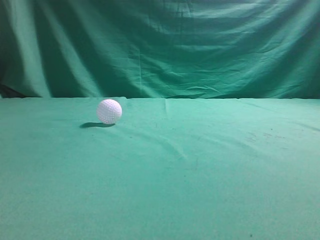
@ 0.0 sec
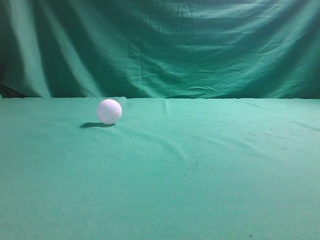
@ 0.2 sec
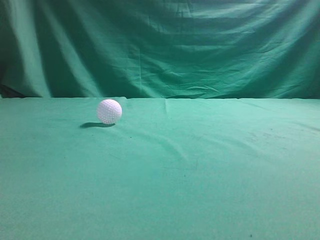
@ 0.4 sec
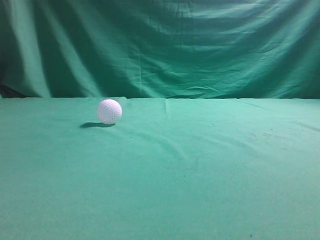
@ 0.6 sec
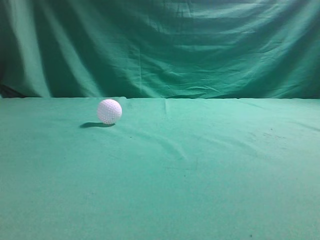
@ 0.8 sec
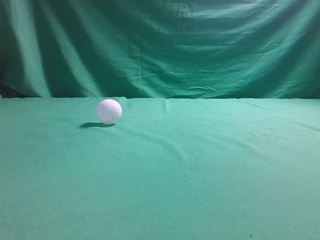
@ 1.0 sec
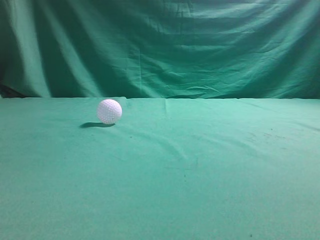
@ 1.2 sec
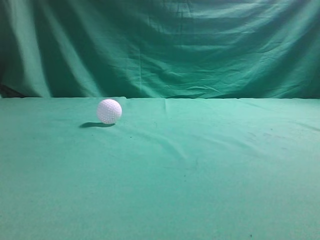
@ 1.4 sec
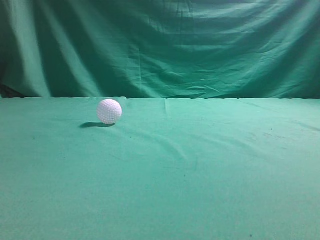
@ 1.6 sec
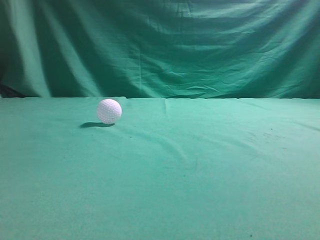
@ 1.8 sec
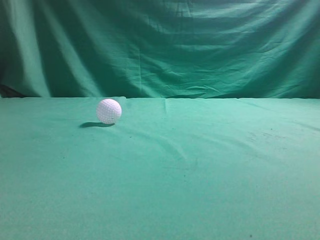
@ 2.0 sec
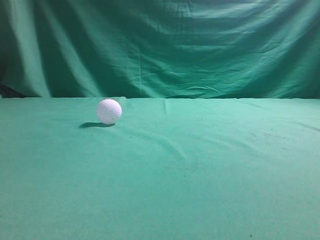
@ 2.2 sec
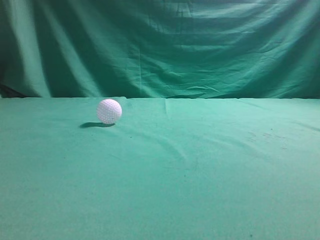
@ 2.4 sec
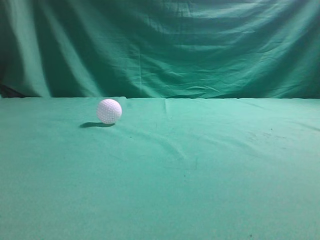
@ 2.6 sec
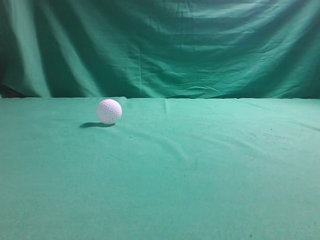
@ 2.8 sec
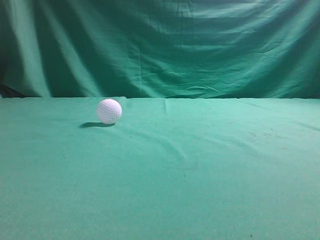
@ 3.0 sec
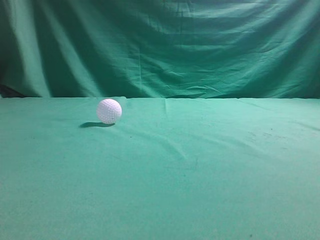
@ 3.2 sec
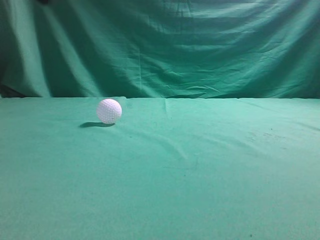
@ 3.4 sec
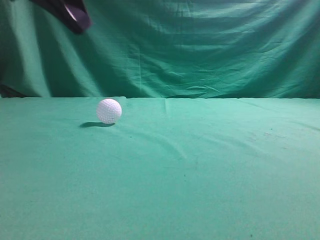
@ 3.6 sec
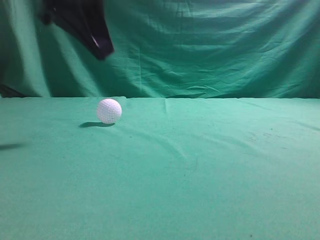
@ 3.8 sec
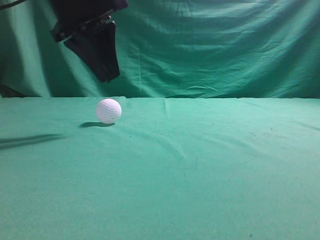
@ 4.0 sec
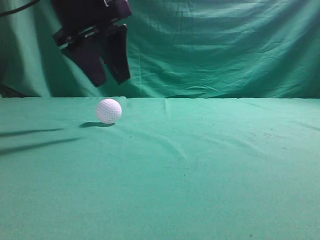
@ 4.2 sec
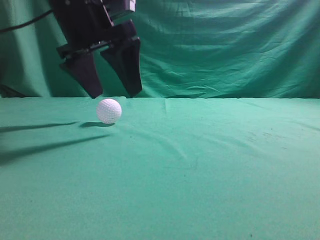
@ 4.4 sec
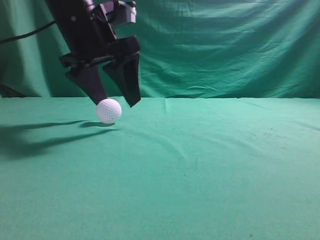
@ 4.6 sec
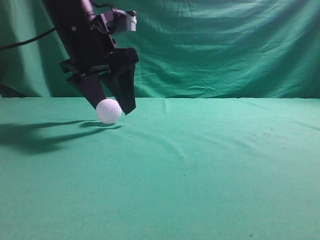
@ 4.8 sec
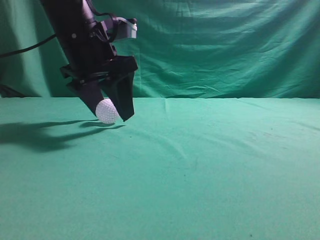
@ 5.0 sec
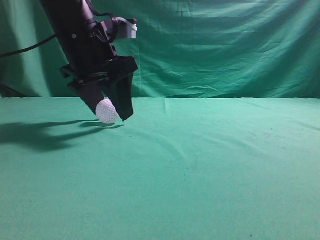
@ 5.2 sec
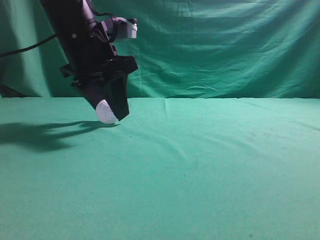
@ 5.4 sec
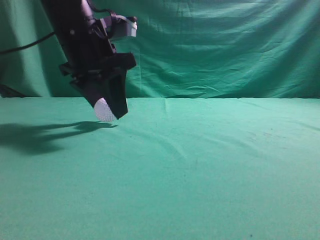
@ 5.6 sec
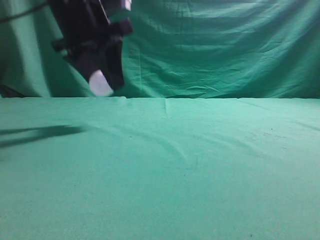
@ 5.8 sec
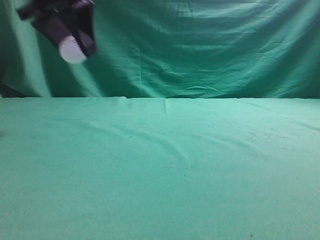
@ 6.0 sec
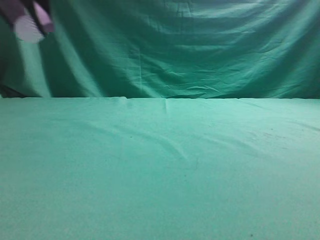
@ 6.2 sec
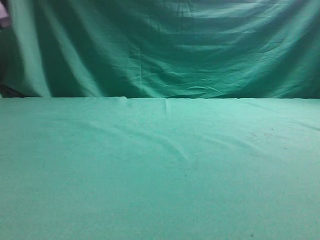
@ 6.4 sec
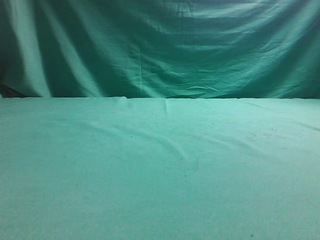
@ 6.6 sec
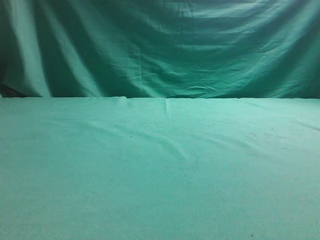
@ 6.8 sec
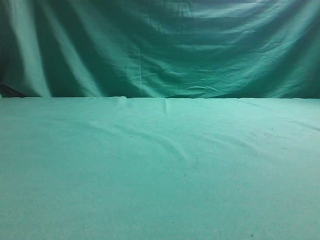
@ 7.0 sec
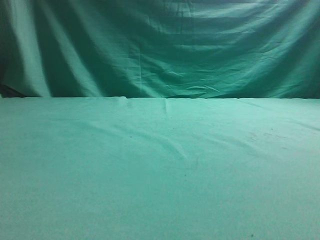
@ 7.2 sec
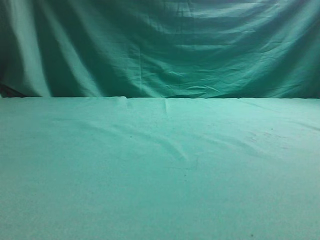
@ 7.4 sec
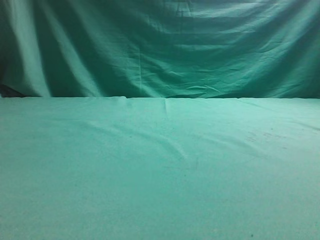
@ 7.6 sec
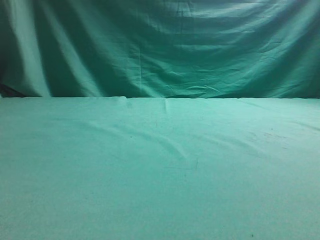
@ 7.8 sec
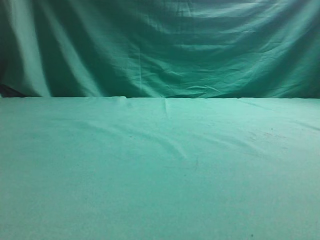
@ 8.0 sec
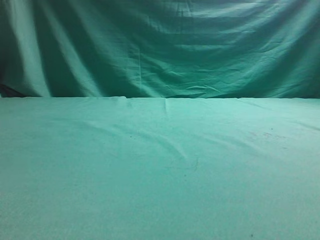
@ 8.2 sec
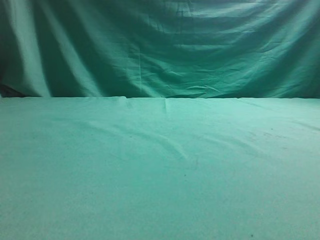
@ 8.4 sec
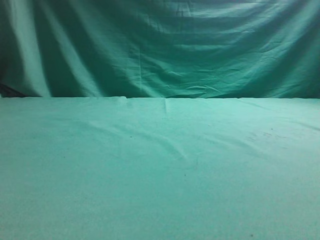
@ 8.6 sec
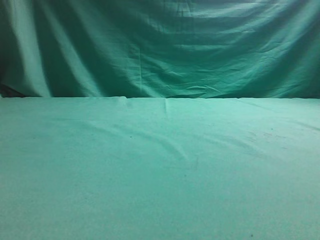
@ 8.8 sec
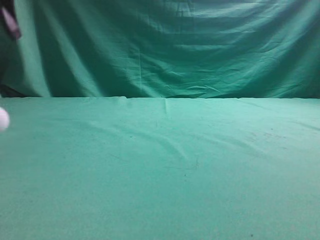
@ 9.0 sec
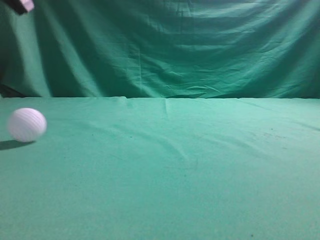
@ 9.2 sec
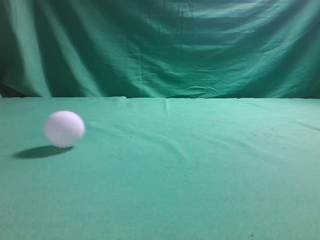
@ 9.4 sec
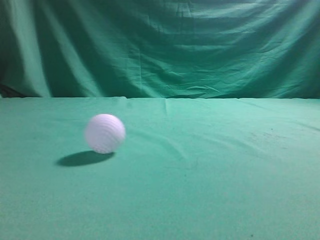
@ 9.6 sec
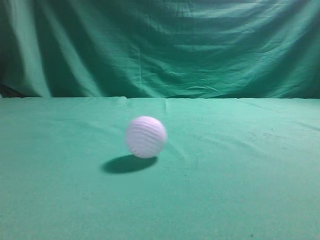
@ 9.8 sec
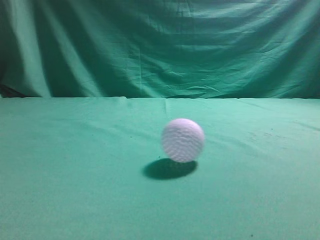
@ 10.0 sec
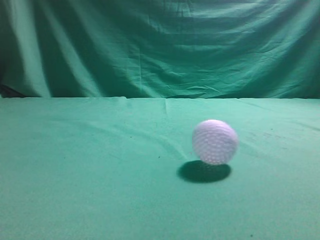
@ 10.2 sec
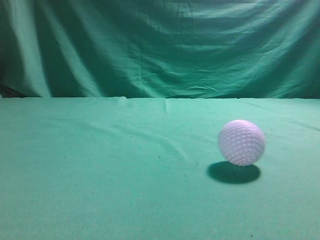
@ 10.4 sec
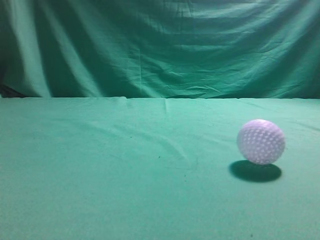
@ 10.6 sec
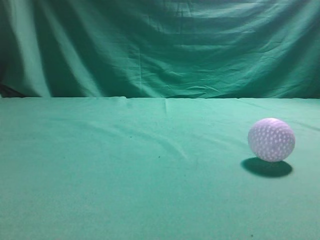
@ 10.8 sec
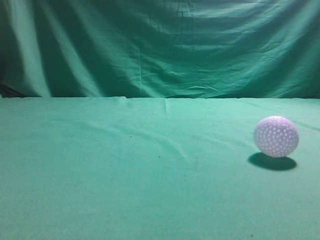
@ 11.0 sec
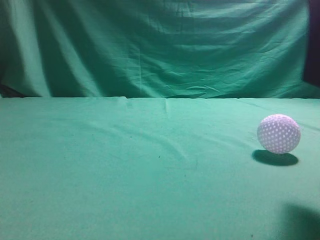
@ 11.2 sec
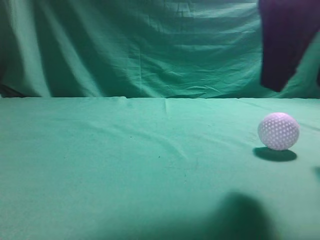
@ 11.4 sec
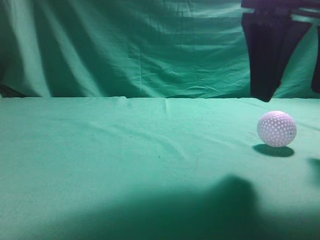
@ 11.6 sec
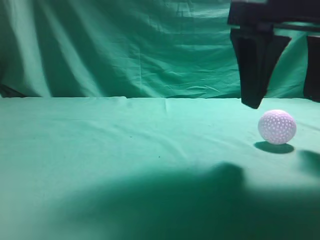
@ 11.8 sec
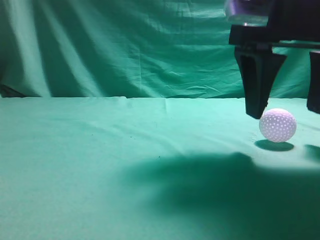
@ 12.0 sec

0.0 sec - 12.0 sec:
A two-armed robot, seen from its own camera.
Task of the whole recording: pick up the ball and place it on the plate, then pick up the ball from the plate and put it in the center of the table.
Step, 0.0 sec - 6.0 sec: Grab the spherical object with your left arm.
Step, 6.2 sec - 8.6 sec: Place the sphere on the white object.
3.0 sec - 4.4 sec: The left gripper moves forward, to the right and downward, approximately 30 cm, and opens up.
4.4 sec - 6.0 sec: The left gripper travels upward by about 5 cm, and closes its fingers.
6.0 sec - 7.6 sec: The left gripper goes about 20 cm to the left.
7.6 sec - 9.0 sec: The left gripper goes some 10 cm upward and forward.
9.0 sec - 10.4 sec: The left gripper shifts about 25 cm backward, and closes up.
10.4 sec - 12.0 sec: The right gripper travels forward, to the left and downward by some 20 cm, and opens up.

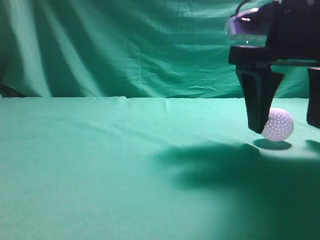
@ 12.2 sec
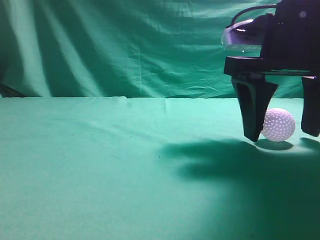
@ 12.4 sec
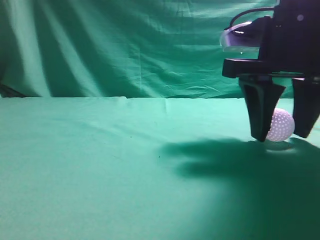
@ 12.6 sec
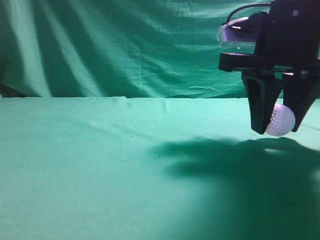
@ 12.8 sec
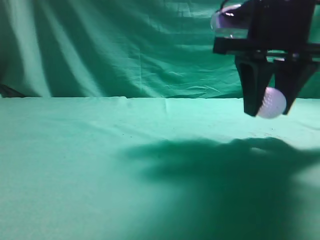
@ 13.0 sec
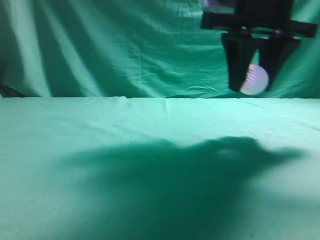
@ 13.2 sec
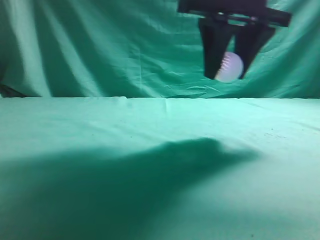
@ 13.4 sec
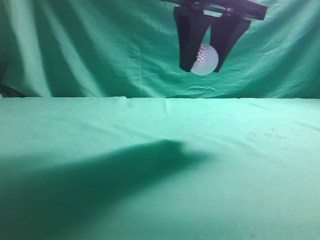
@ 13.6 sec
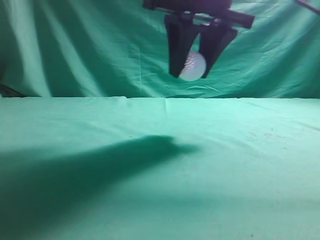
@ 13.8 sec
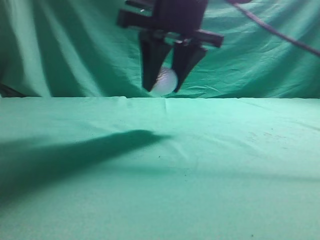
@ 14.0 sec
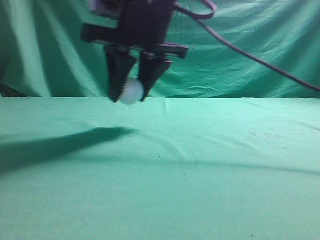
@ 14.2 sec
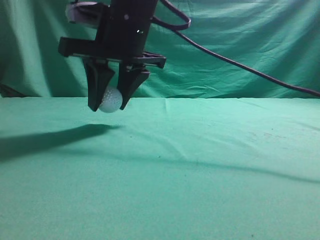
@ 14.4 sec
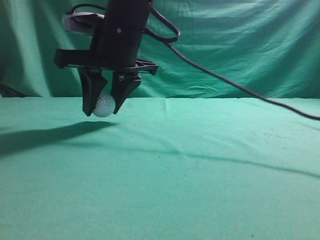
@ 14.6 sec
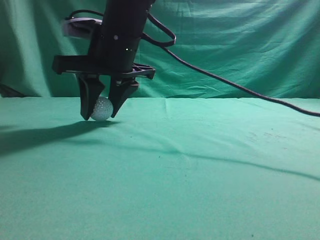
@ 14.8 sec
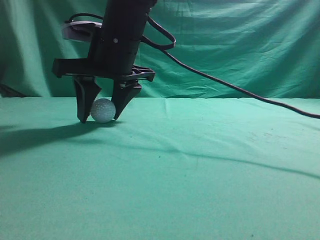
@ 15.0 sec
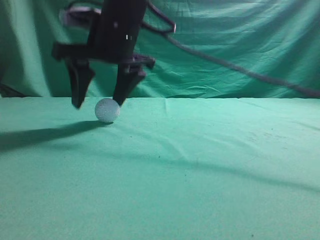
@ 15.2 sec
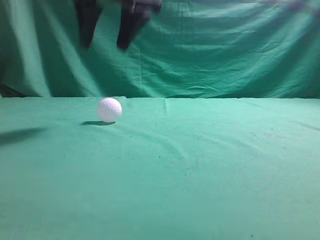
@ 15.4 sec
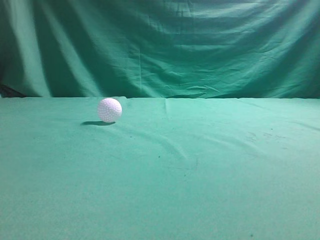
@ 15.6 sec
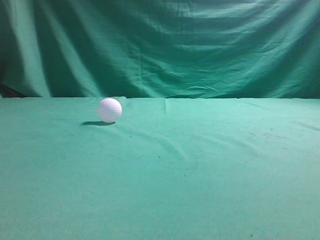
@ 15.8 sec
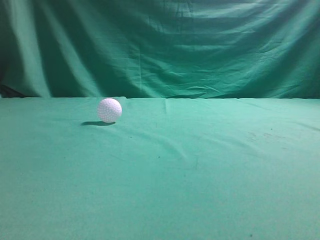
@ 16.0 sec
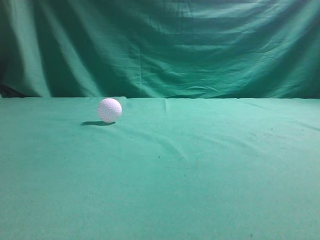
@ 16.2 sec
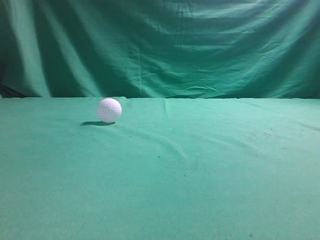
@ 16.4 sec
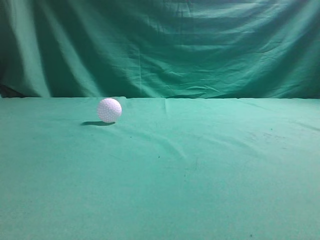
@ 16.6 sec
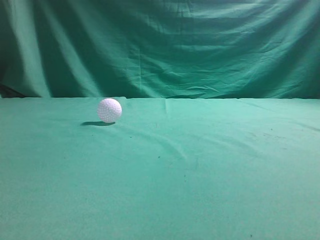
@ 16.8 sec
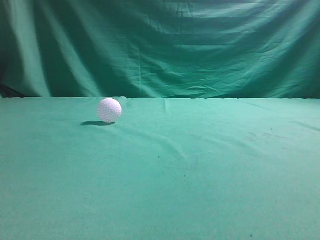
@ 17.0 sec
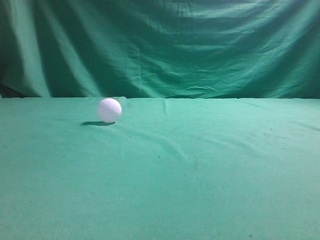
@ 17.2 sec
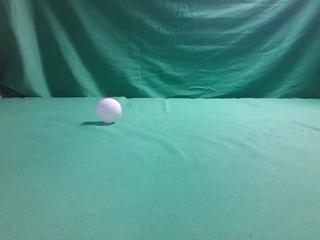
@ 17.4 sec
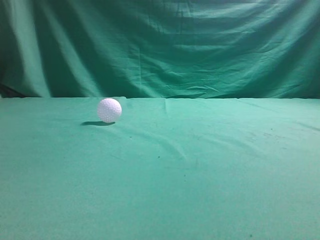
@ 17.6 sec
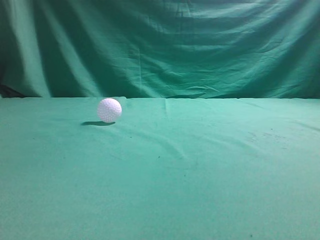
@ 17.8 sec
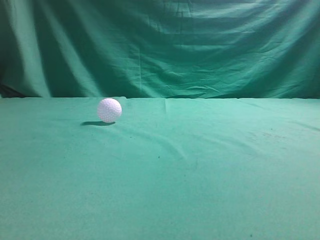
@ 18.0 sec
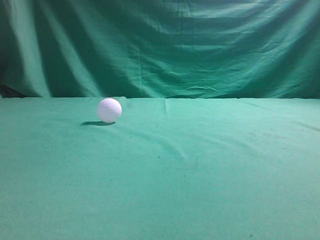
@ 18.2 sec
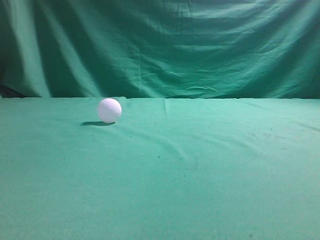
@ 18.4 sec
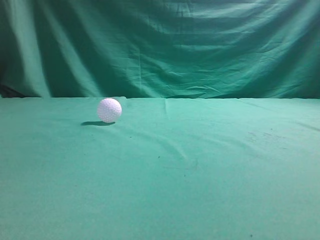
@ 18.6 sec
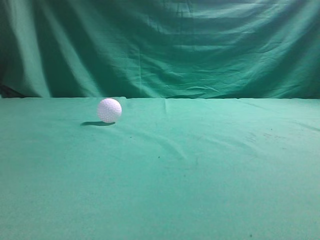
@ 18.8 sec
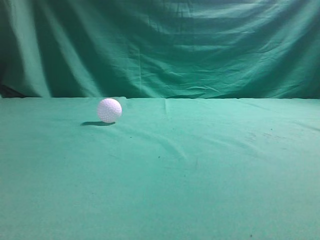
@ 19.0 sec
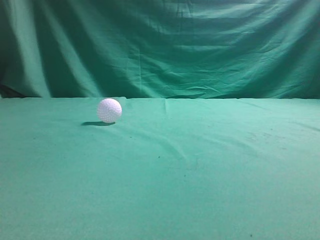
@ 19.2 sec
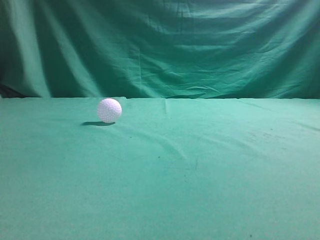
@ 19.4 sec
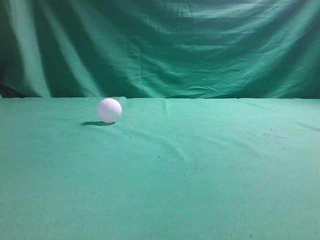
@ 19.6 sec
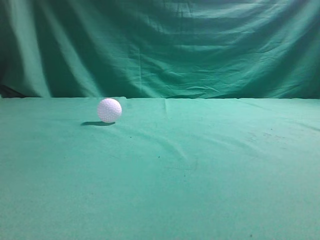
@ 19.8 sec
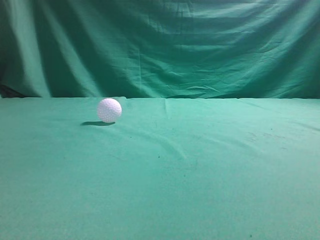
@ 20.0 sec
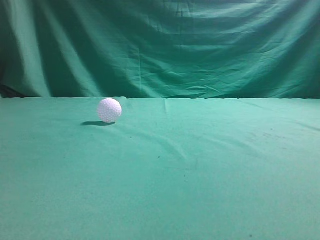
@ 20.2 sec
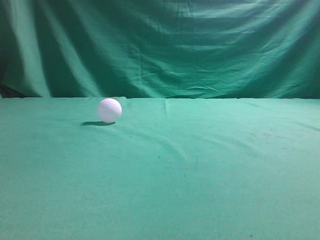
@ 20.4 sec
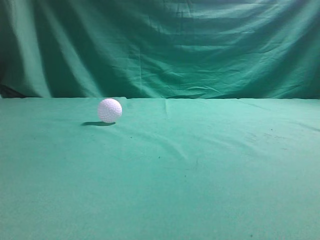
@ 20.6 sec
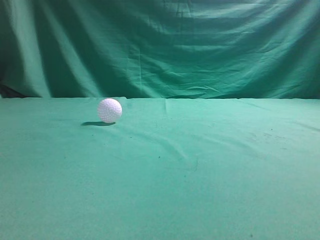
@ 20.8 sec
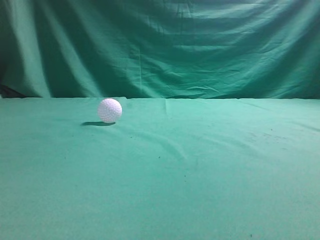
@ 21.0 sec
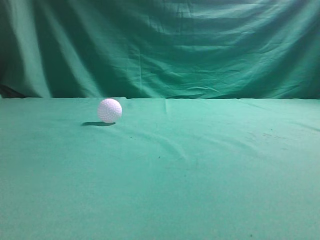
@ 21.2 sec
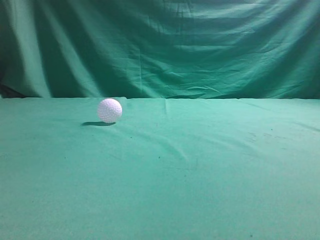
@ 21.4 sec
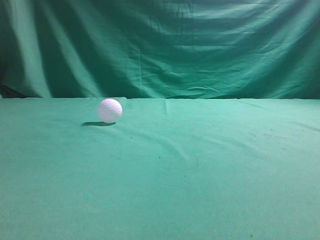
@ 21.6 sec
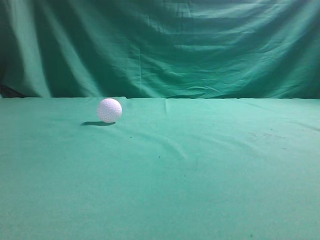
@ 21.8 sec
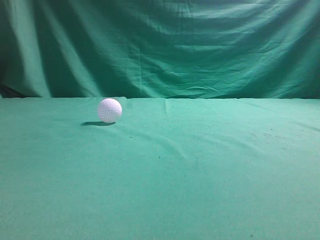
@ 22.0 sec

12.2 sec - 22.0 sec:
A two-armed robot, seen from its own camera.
Task of the whole recording: pick up the ball and place it on the plate, then pick up the ball from the plate and put it in the center of the table.
Step, 13.8 sec - 15.0 sec: Put the picked-up object on the table.
12.2 sec - 13.6 sec: The left gripper is displaced backward by about 5 cm. Meanwhile the right gripper travels to the left and upward by roughly 10 cm, and closes up.
13.6 sec - 15.0 sec: The right gripper heads to the left, downward and forward, covering roughly 15 cm.
15.0 sec - 16.4 sec: The right gripper moves upward, to the right and backward, about 40 cm, and closes up; the left gripper shifts by about 5 cm.
